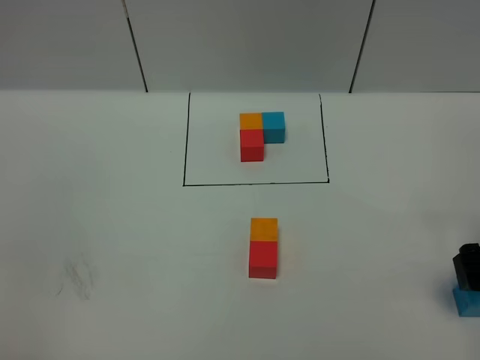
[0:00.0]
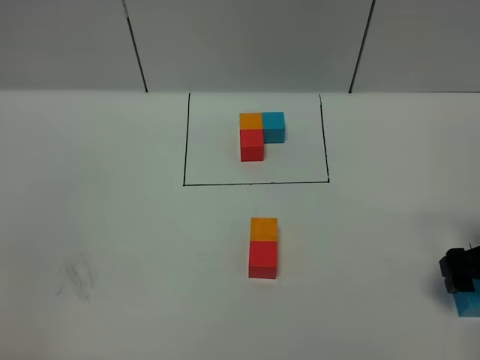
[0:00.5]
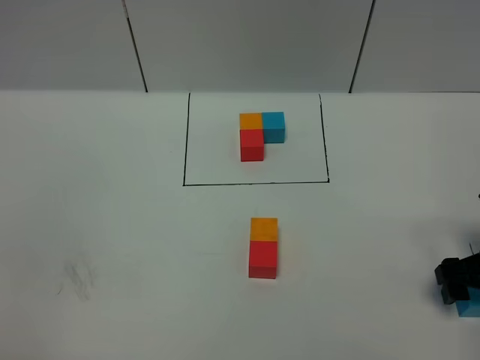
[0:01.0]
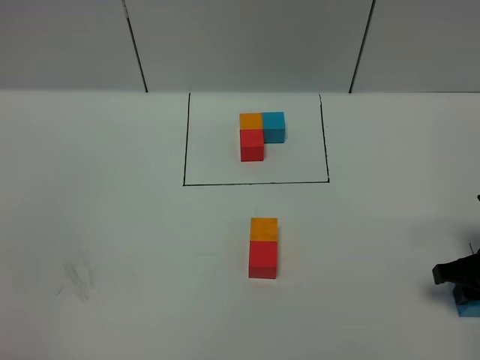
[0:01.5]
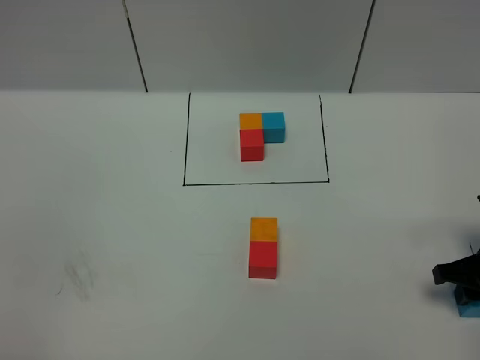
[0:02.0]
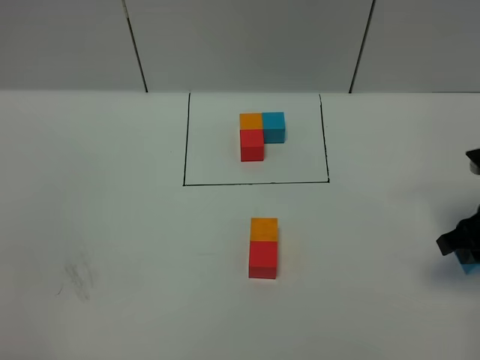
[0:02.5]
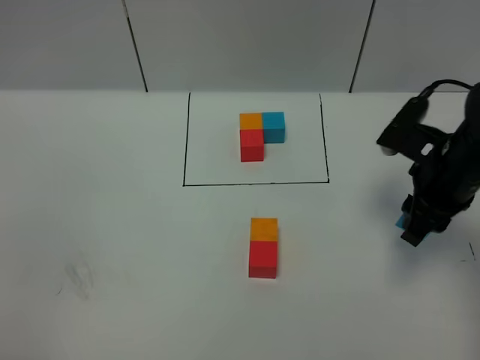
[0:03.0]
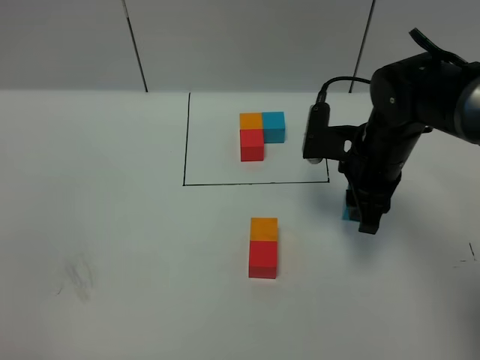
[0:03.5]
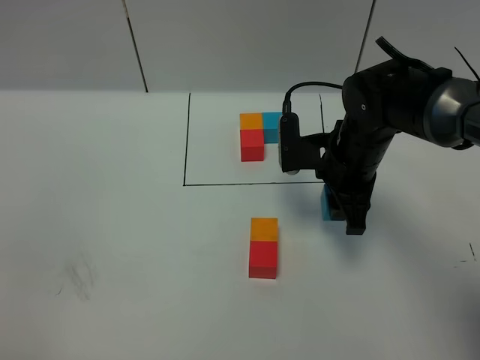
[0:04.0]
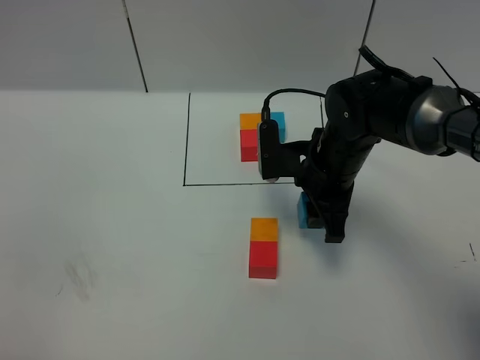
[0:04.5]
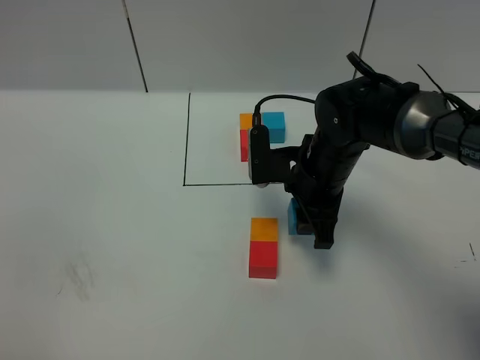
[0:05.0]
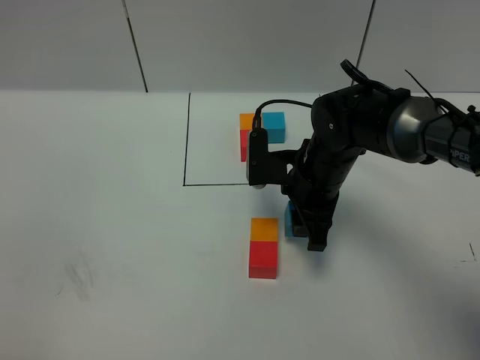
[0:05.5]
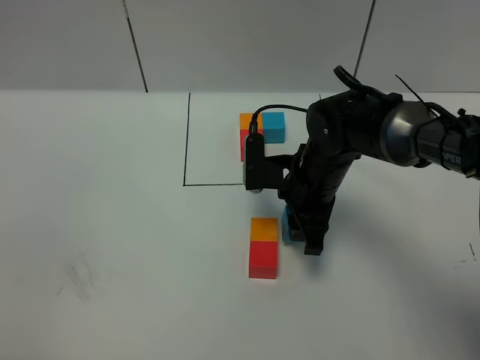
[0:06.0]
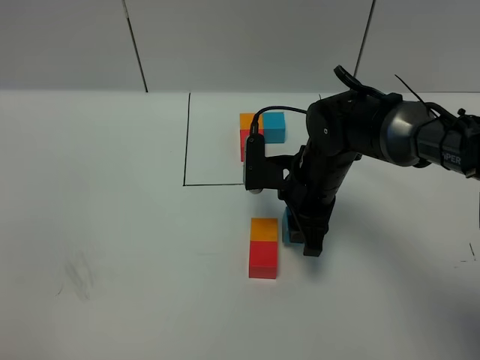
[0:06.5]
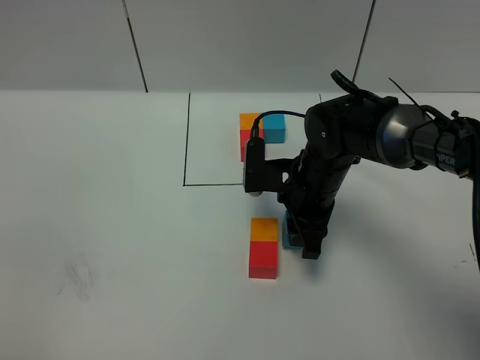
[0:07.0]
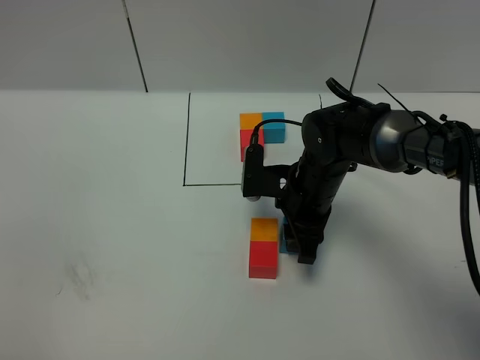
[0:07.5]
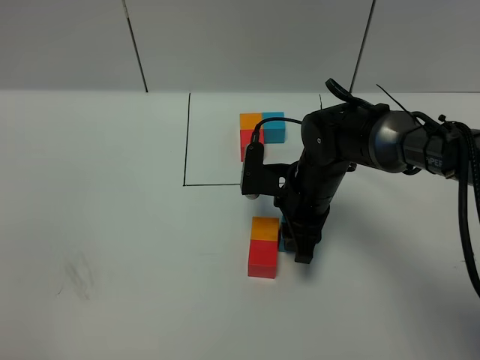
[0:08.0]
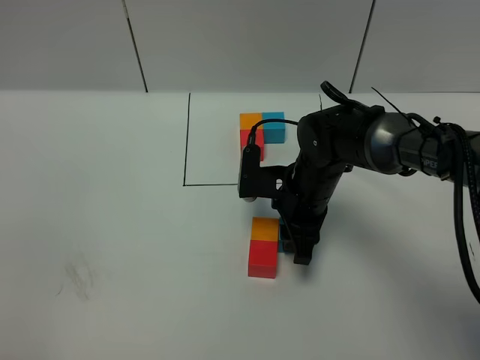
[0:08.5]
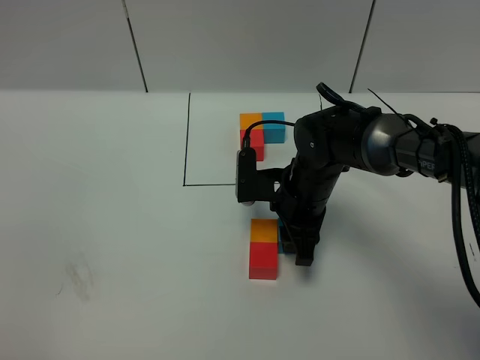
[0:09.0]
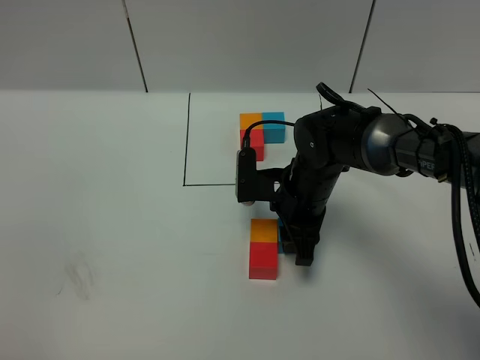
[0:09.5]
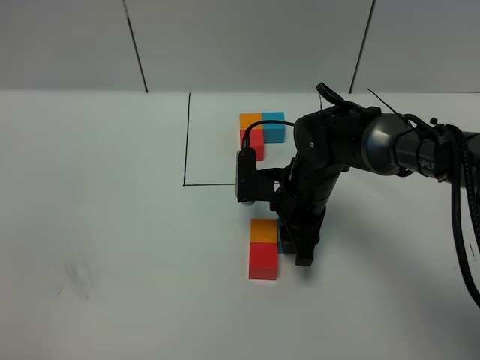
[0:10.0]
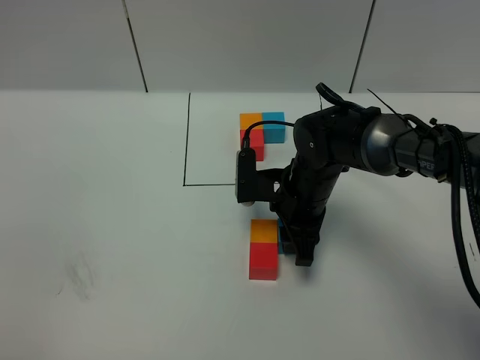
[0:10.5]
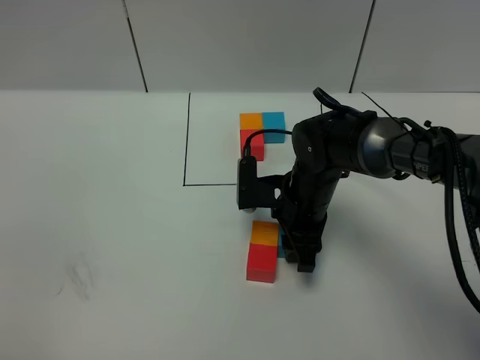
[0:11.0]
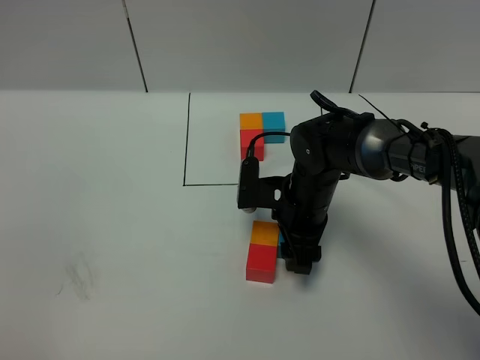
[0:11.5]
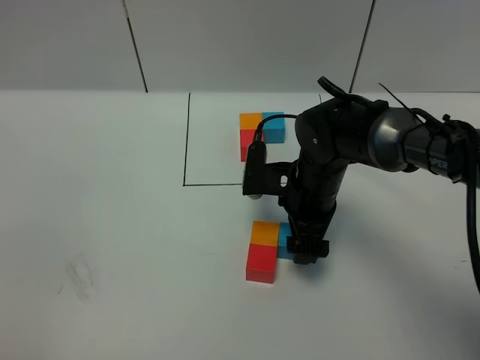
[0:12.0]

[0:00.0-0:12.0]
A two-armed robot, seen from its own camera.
Task of the whole recording: According to the building block template in front, assemble the scattered blocks together.
Step, 0:00.0 to 0:11.5: Put the blue cube on the right of the orange cube.
0:00.0 to 0:02.0: The right gripper travels downward by some 5 cm, and closes up.
0:02.0 to 0:04.0: The right gripper shifts some 20 cm to the left and forward.
0:04.0 to 0:06.0: The right gripper changes place by some 5 cm.
0:06.0 to 0:10.0: The grippers make only small movements.
0:10.0 to 0:12.0: The right gripper opens its fingers.

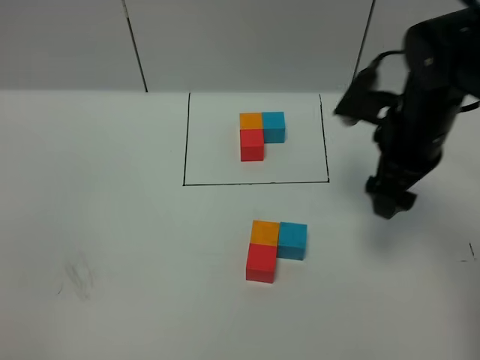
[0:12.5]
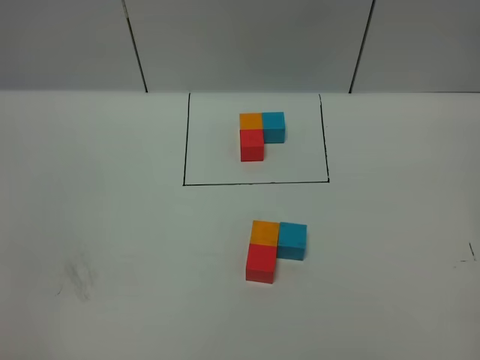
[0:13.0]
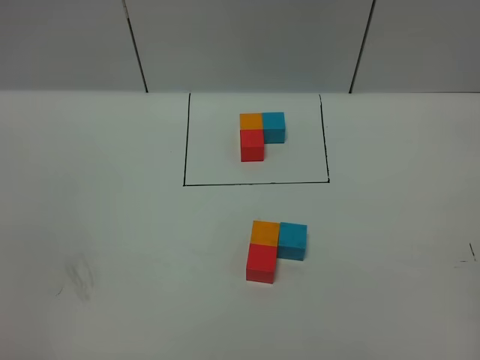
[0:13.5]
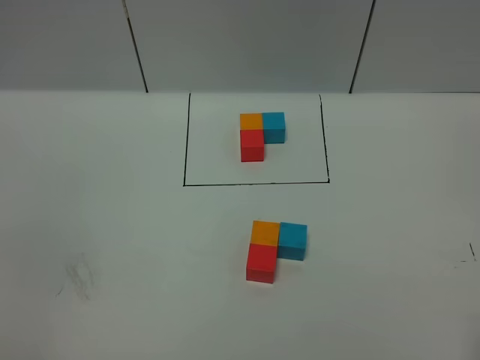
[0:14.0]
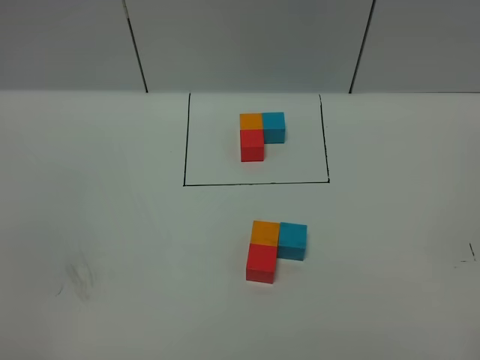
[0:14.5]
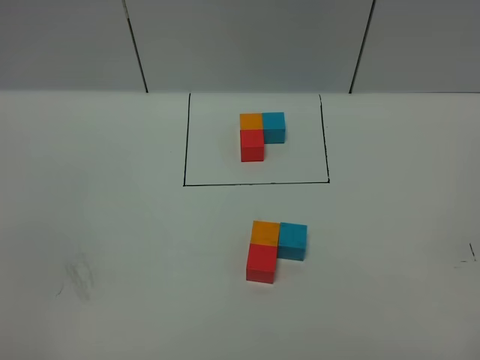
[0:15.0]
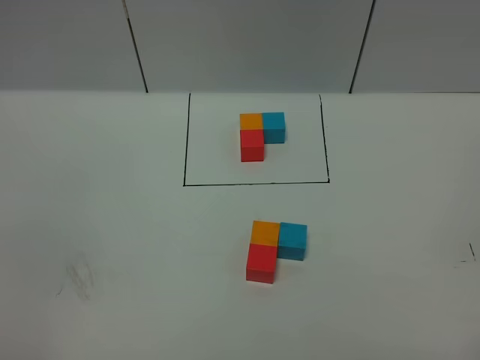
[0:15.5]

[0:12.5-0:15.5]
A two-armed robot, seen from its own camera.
Task of the whole recording: According to the building block template in front, assemble the scattered blocks together.
0:12.5 to 0:14.0: The right gripper goes about 30 cm backward and to the right.

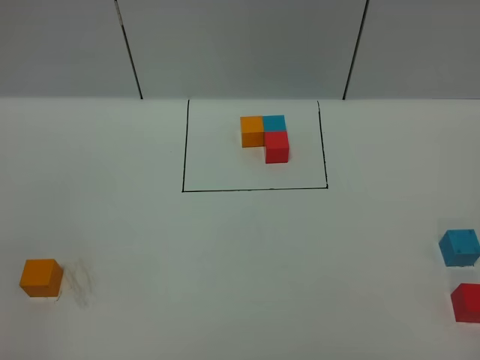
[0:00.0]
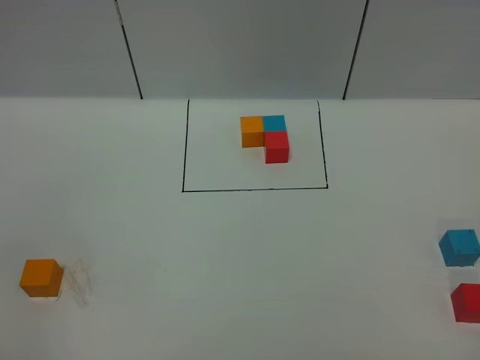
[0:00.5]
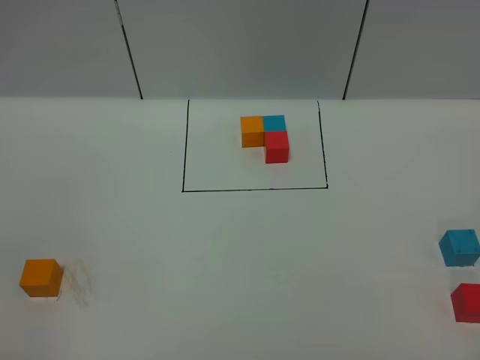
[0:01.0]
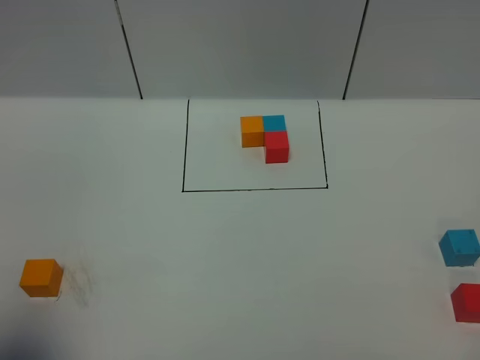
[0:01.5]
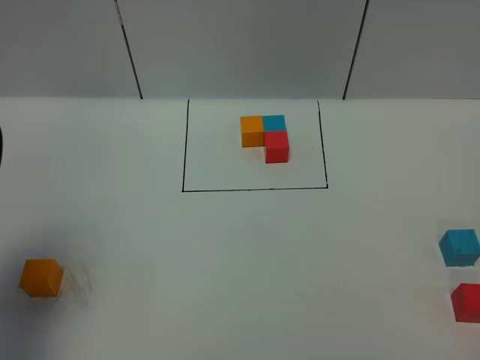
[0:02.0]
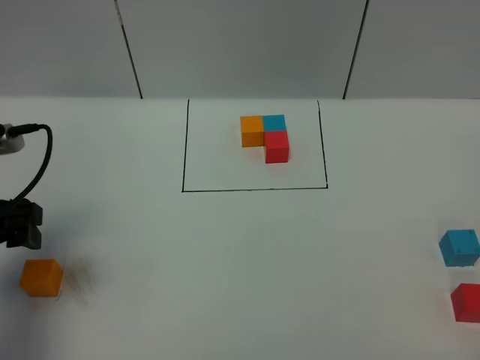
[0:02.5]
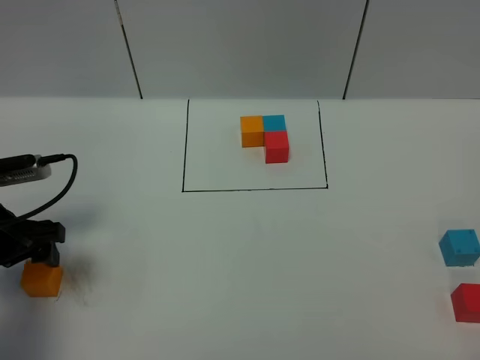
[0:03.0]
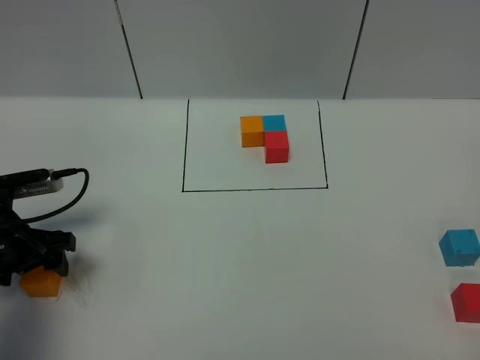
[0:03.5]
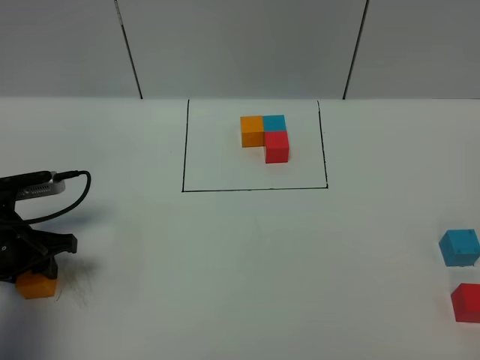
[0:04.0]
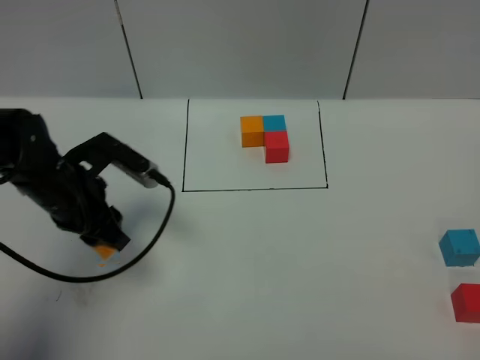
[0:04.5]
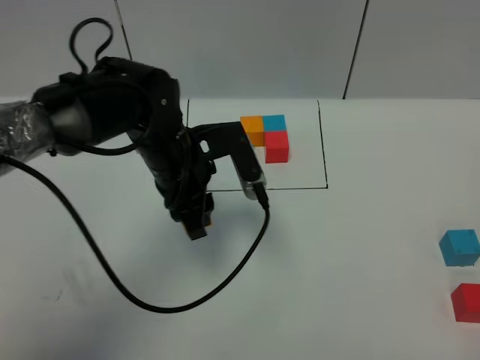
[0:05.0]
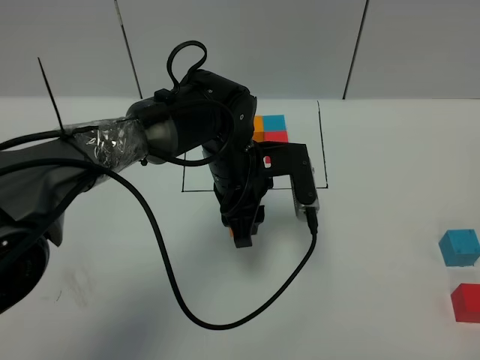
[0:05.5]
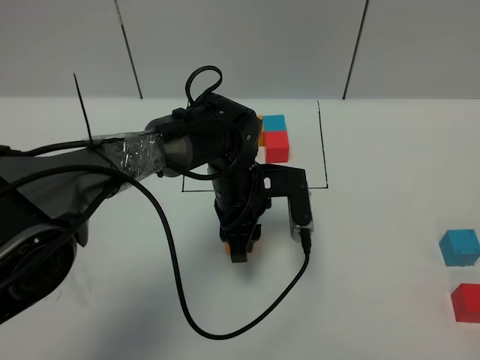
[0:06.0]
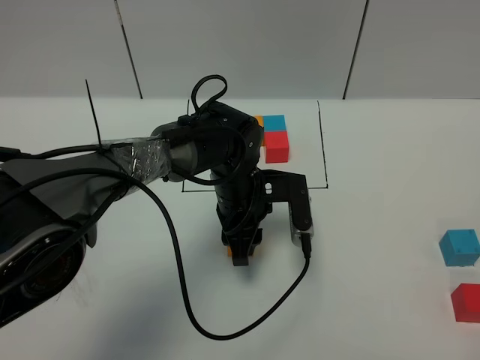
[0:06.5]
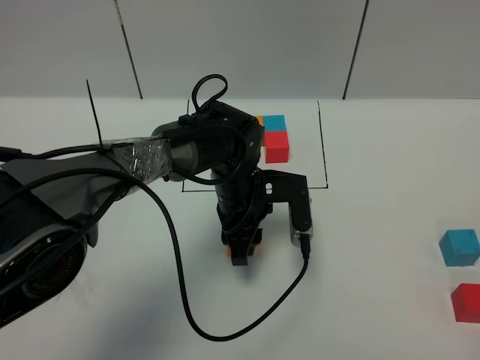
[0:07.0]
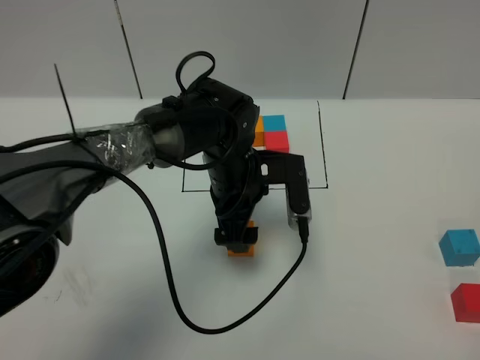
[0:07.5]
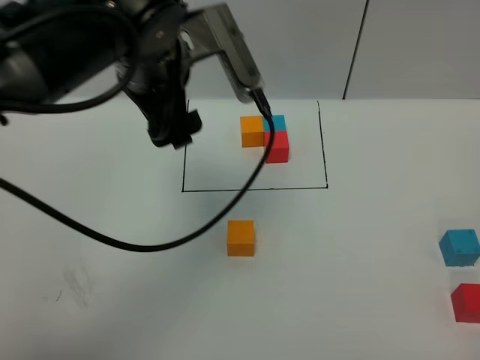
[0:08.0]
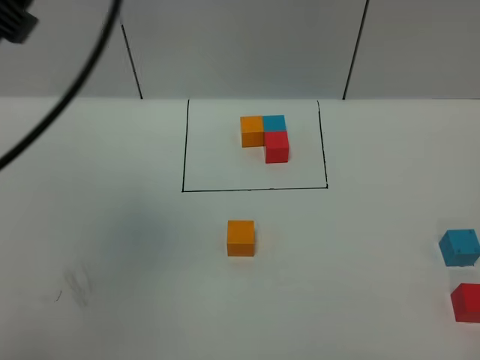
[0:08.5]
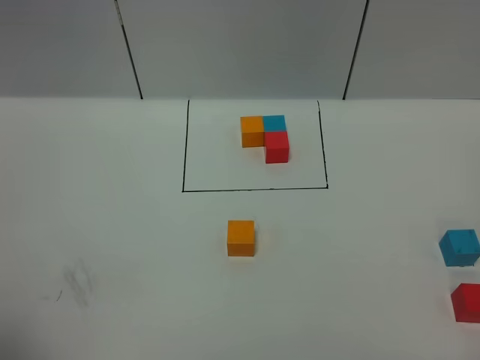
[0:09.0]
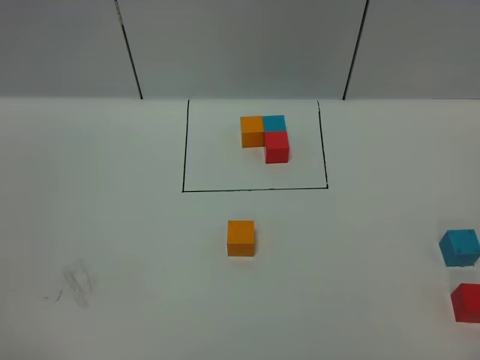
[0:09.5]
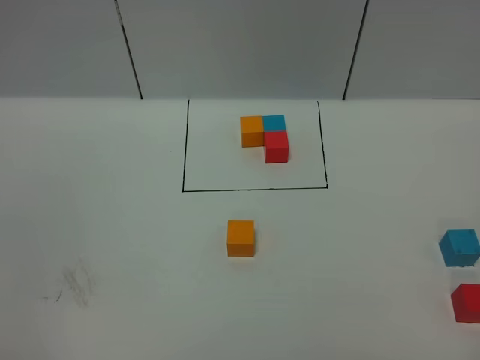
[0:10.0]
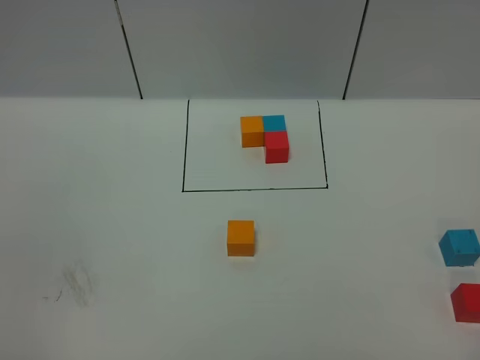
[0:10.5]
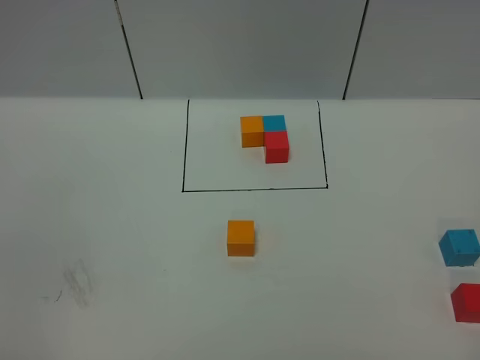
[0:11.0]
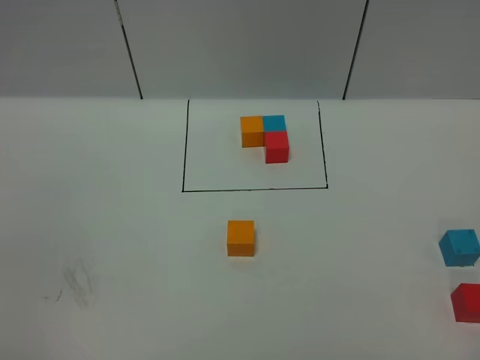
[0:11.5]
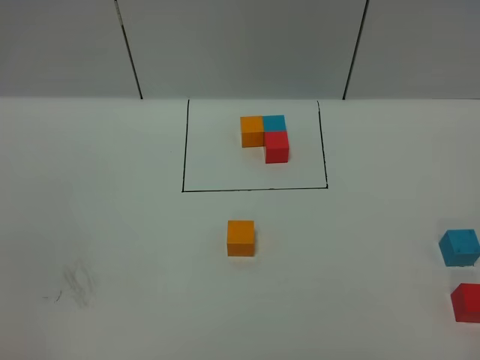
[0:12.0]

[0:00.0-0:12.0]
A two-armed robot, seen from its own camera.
Task of the whole recording: According to the building block template in front, assemble the scattered blocks together.
Step, 0:02.0 to 0:07.0: Put the orange cube in the center of the table.
0:00.0 to 0:02.0: The left gripper moves forward, about 20 cm, and opens its fingers.
0:02.0 to 0:04.0: The left gripper goes approximately 20 cm downward and forward, and closes.
0:04.0 to 0:06.0: The left gripper heads to the right, covering about 30 cm.
0:06.0 to 0:08.0: The left gripper shifts some 20 cm upward, and opens up.
0:08.0 to 0:10.0: The left gripper heads backward and to the left, covering approximately 40 cm.
